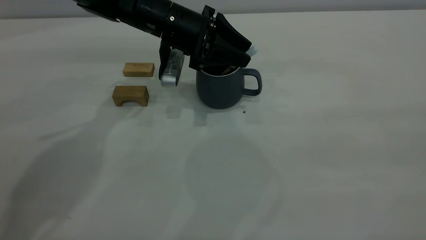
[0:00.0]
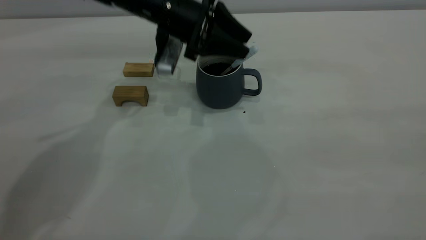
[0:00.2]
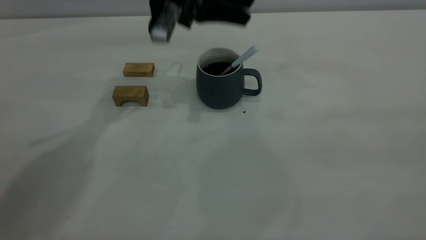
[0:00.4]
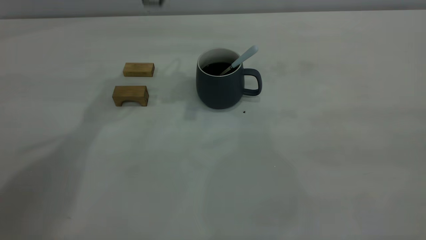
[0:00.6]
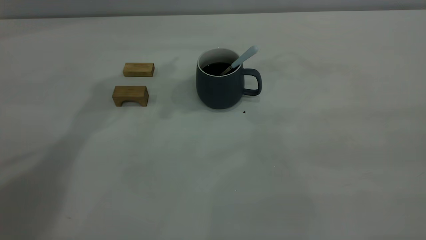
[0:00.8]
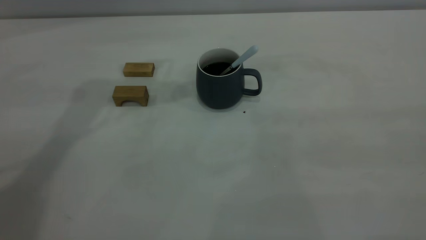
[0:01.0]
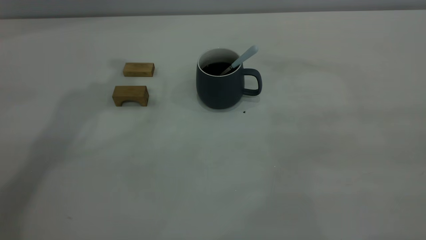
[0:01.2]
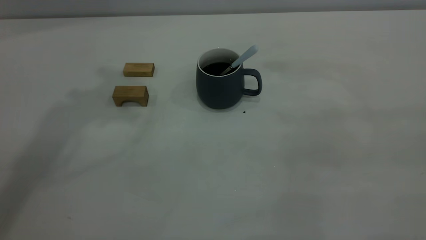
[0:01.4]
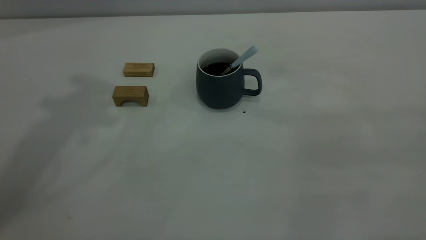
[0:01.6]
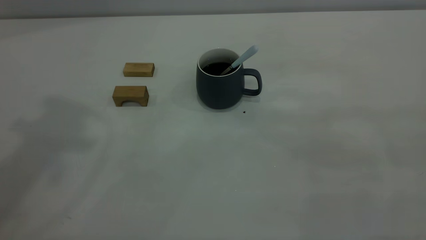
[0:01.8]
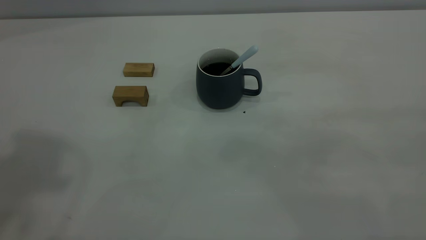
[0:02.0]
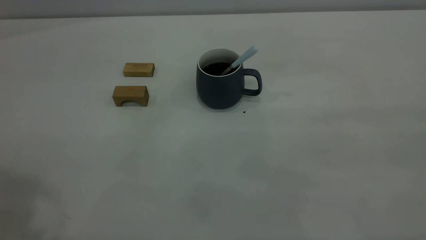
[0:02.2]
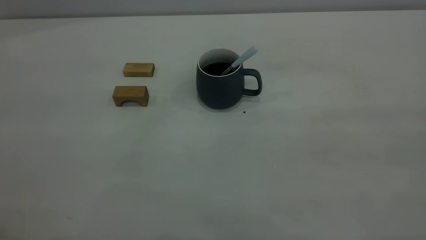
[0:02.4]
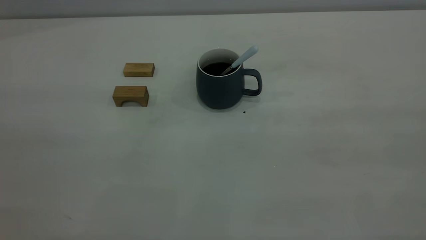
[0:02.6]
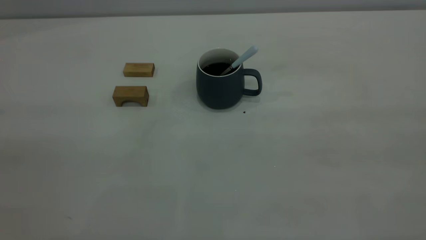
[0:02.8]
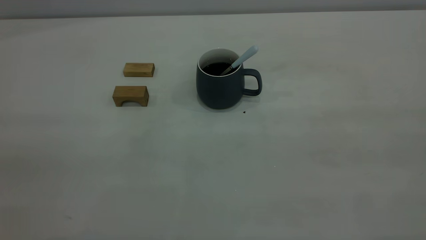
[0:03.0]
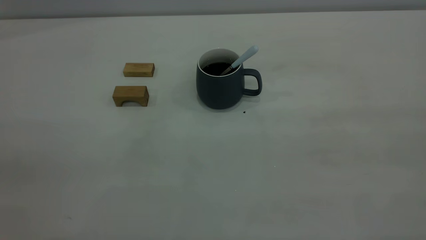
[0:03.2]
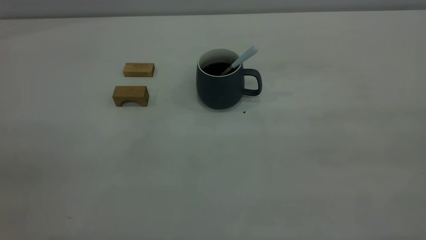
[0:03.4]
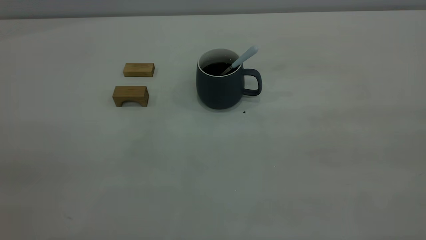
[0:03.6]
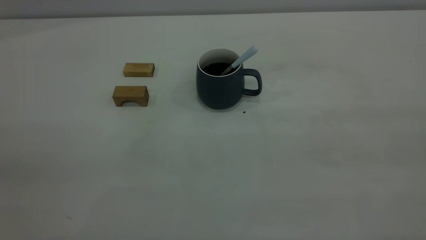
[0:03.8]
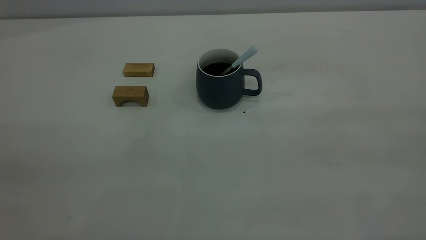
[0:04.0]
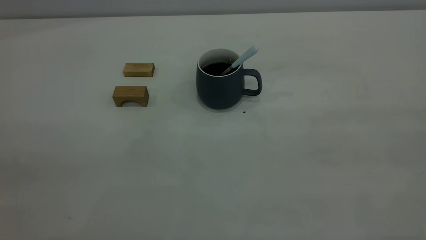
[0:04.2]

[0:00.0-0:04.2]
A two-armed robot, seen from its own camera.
0:00.0 to 0:01.4: The left gripper heads upward, covering about 35 cm.
